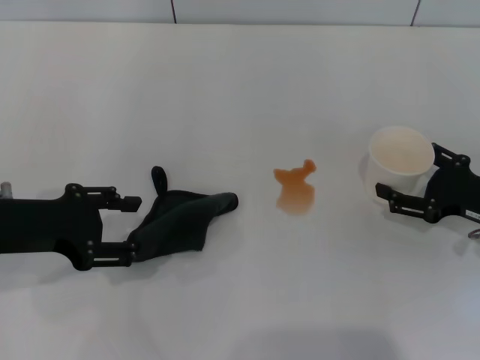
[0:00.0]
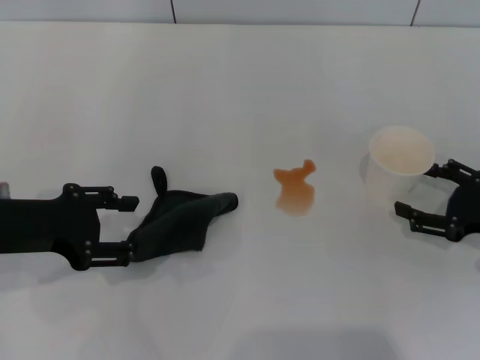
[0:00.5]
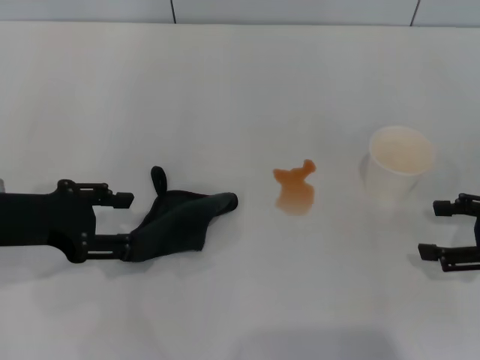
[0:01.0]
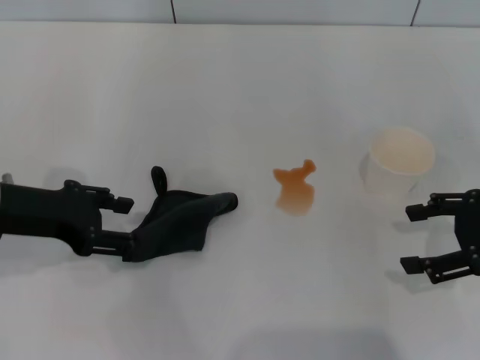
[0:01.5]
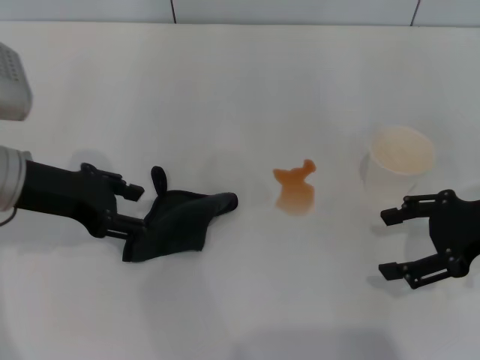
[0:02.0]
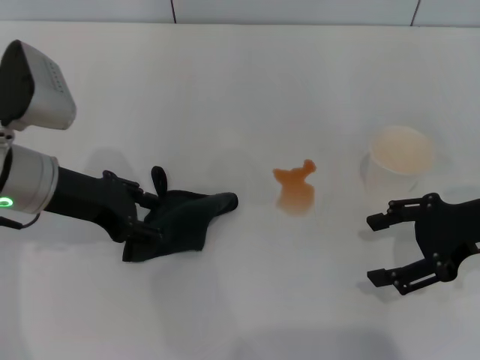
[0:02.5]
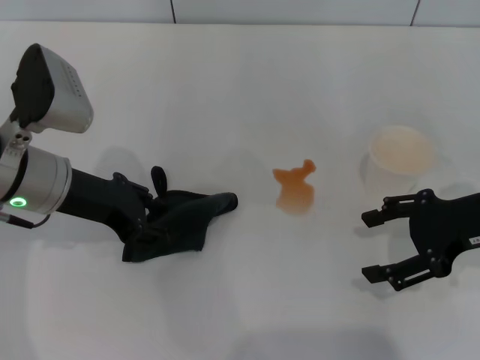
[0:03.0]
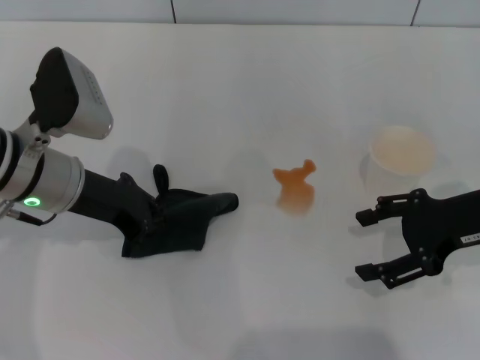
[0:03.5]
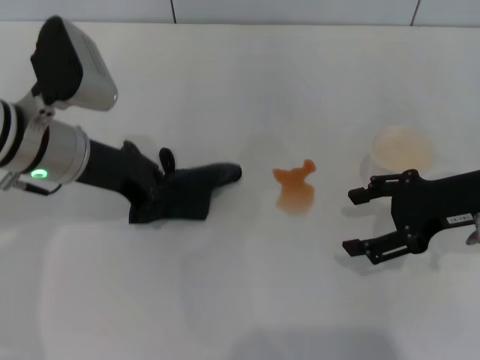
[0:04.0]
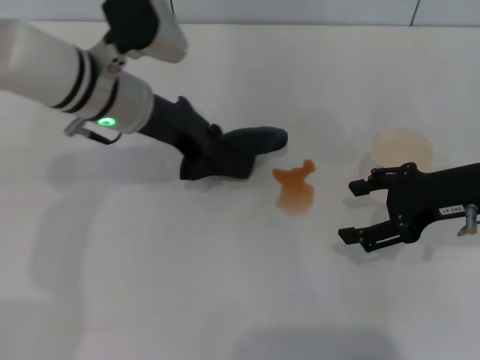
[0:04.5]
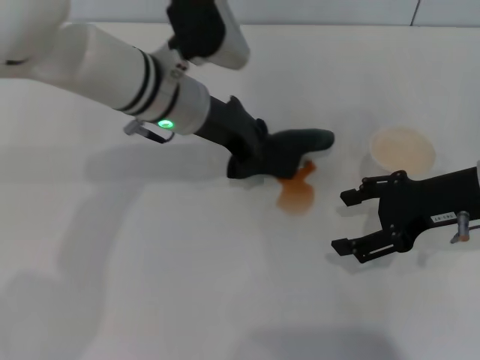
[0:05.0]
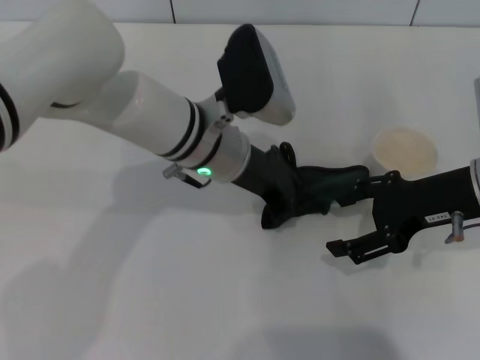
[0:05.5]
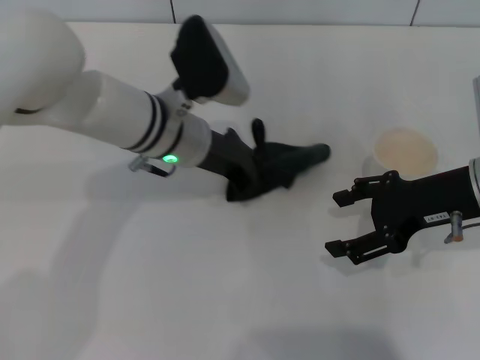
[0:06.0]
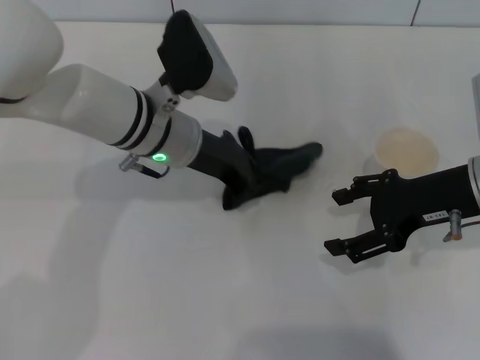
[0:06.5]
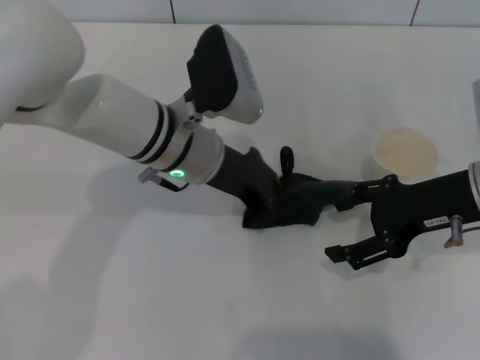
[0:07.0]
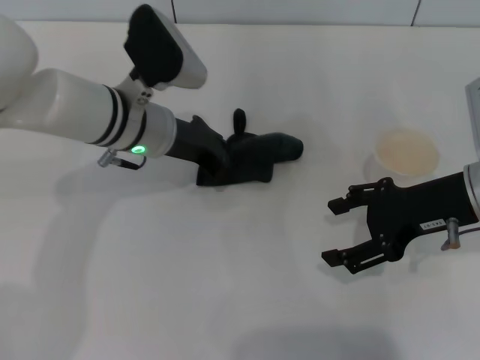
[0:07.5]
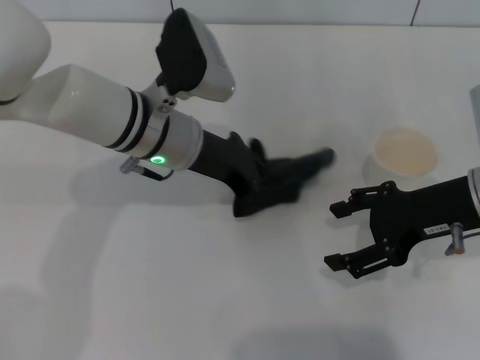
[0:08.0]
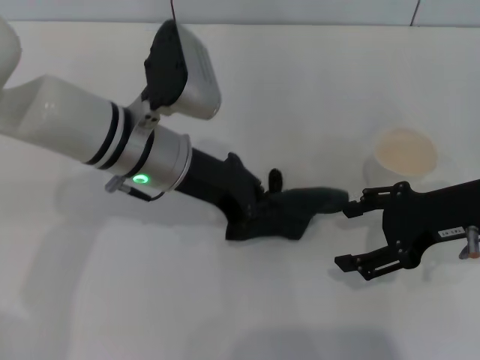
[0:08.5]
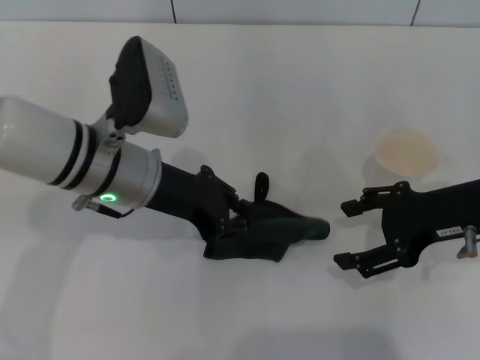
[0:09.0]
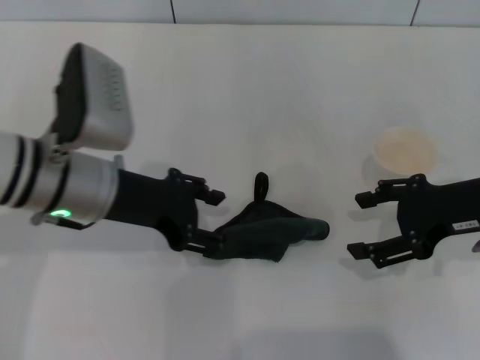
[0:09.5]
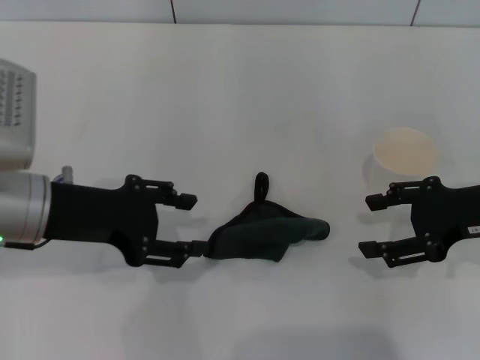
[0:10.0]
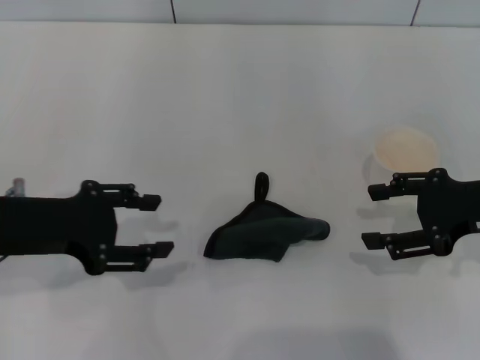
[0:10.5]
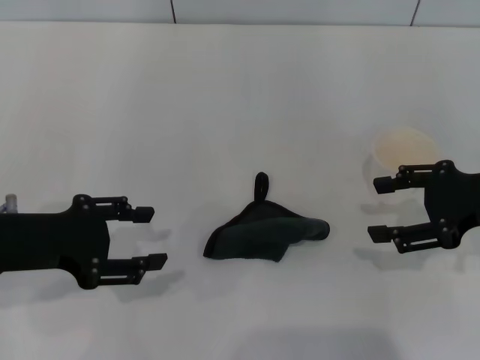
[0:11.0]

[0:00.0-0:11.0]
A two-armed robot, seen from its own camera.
Step, 0:00.5 to 0:03.0: Grasp the rag with the left gripper.
Step, 0:03.5 to 0:08.0: Wipe the stains off the table with the left gripper.
Step, 0:08.5 to 0:09.0: Place the rag on the table with the left gripper.
0:00.0 to 0:02.0: The left gripper ends up roughly 5 cm from where it was. The right gripper heads upward, covering some 10 cm.
0:02.0 to 0:03.5: The left gripper changes place by about 5 cm, and closes up.
0:03.5 to 0:05.5: The left gripper moves to the right, some 15 cm.
0:05.5 to 0:07.5: The left gripper goes roughly 5 cm to the left.
0:07.5 to 0:09.0: The left gripper is displaced backward by roughly 5 cm.
0:09.0 to 0:11.0: The left gripper is displaced to the left and backward by about 15 cm, and opens.
